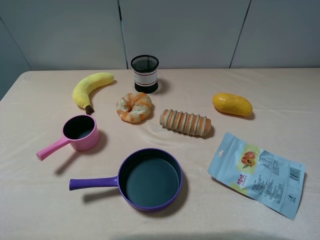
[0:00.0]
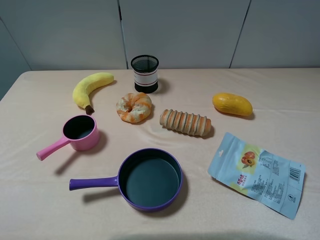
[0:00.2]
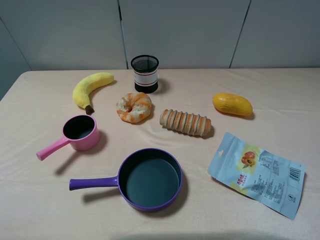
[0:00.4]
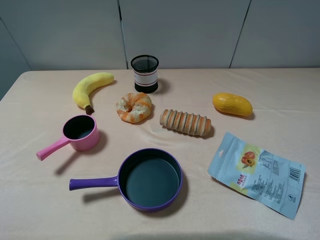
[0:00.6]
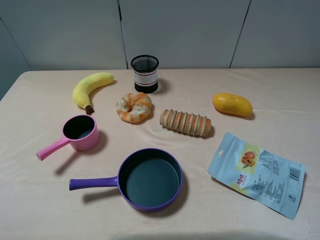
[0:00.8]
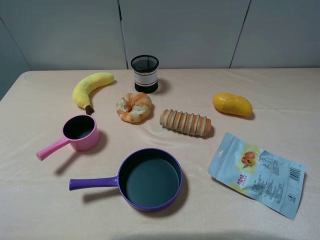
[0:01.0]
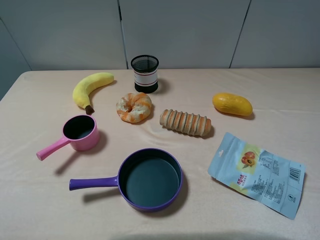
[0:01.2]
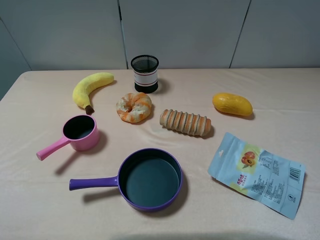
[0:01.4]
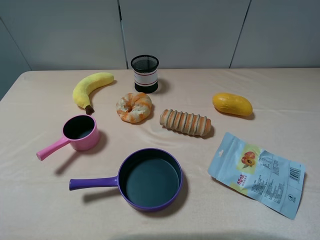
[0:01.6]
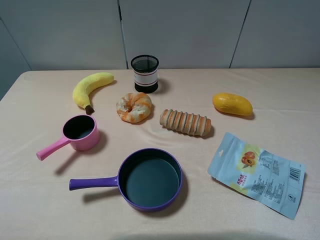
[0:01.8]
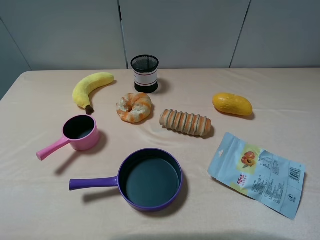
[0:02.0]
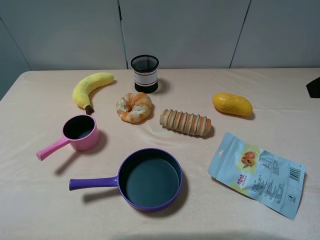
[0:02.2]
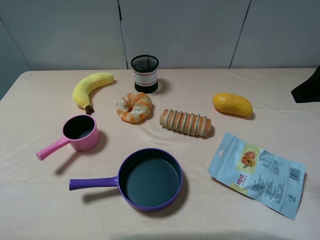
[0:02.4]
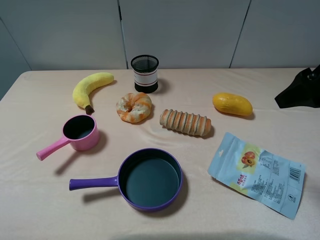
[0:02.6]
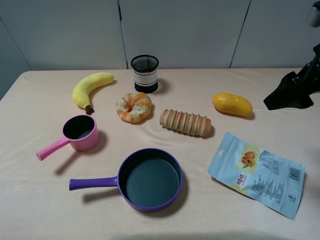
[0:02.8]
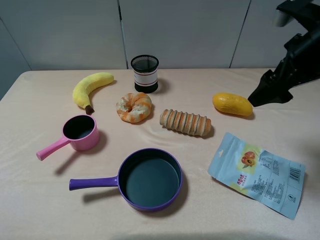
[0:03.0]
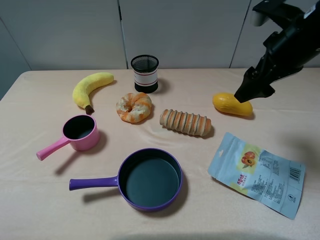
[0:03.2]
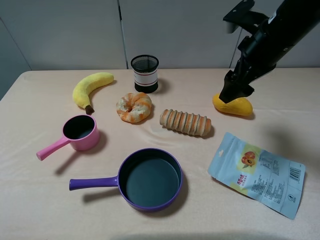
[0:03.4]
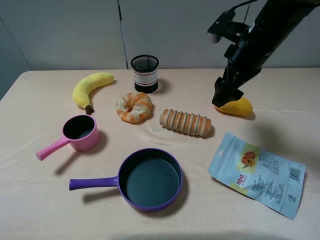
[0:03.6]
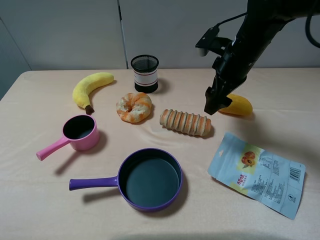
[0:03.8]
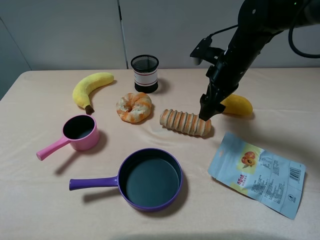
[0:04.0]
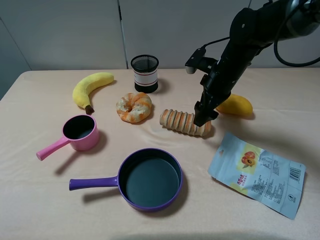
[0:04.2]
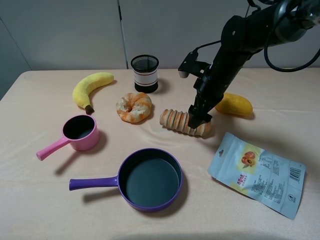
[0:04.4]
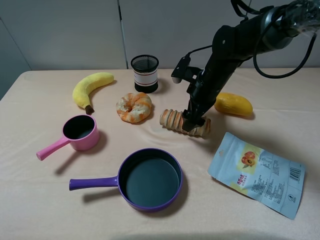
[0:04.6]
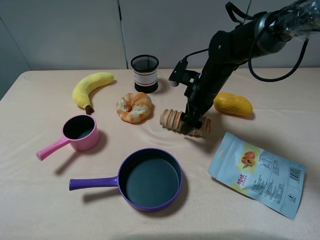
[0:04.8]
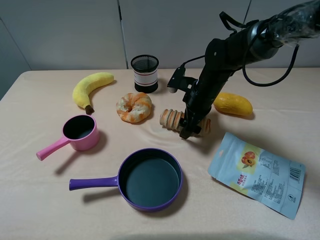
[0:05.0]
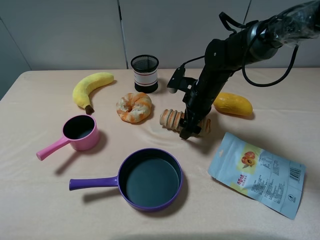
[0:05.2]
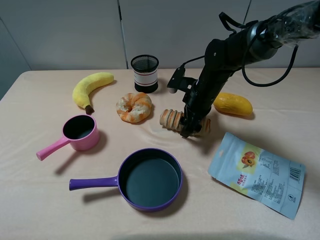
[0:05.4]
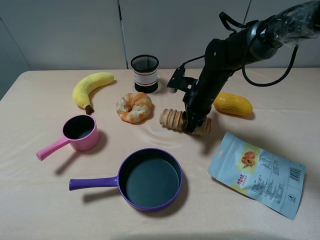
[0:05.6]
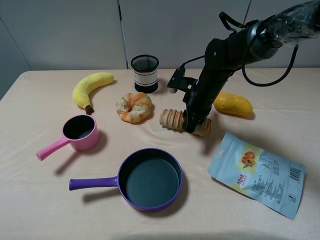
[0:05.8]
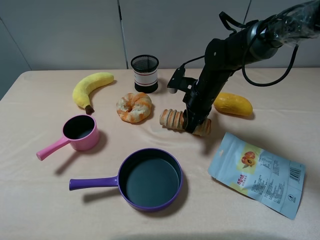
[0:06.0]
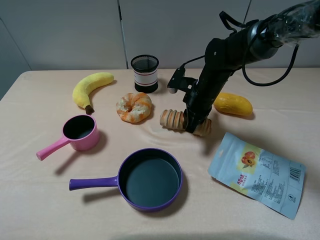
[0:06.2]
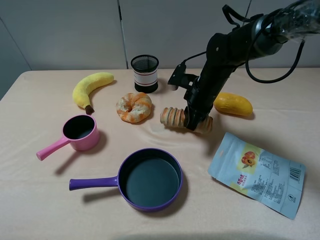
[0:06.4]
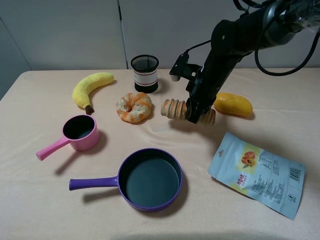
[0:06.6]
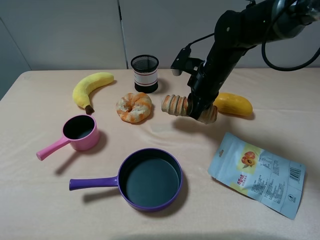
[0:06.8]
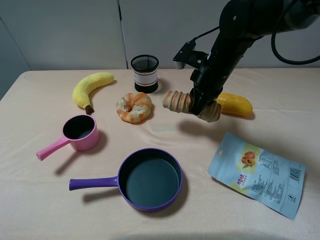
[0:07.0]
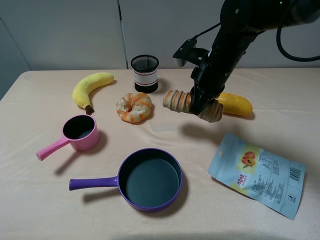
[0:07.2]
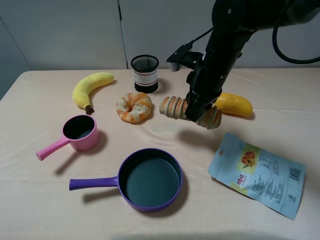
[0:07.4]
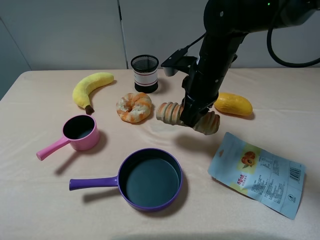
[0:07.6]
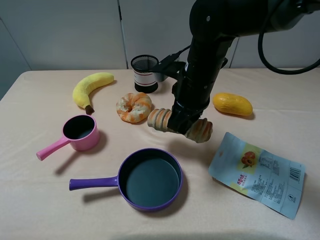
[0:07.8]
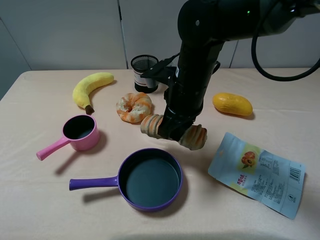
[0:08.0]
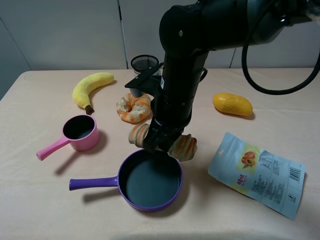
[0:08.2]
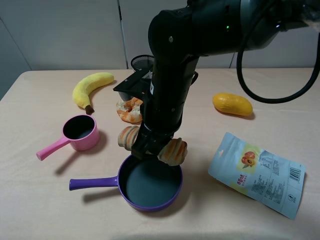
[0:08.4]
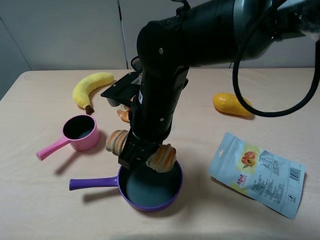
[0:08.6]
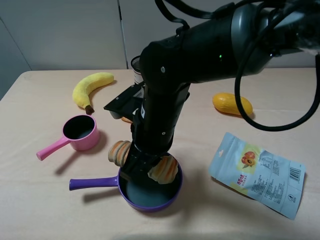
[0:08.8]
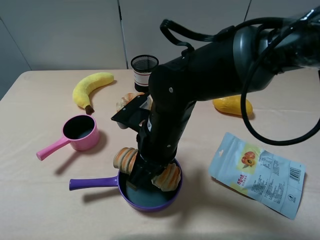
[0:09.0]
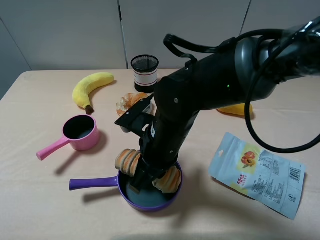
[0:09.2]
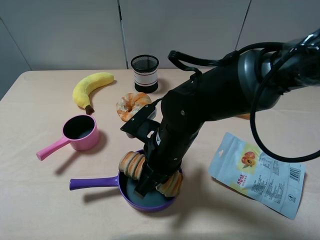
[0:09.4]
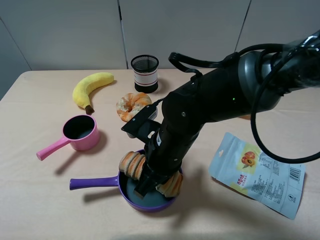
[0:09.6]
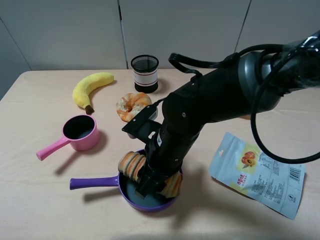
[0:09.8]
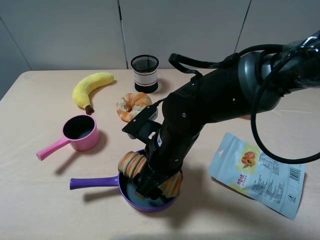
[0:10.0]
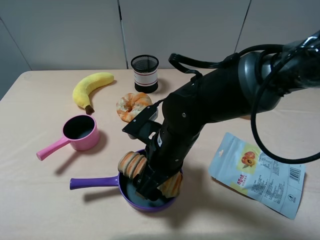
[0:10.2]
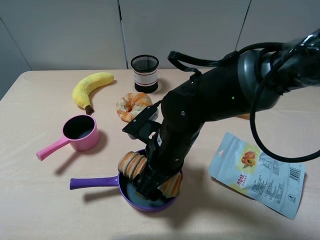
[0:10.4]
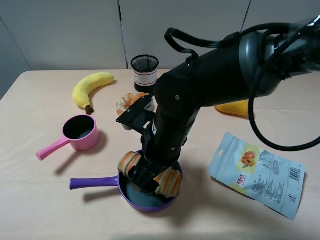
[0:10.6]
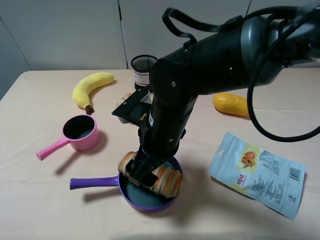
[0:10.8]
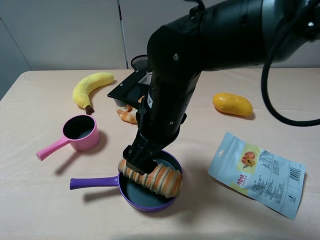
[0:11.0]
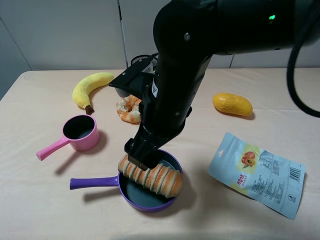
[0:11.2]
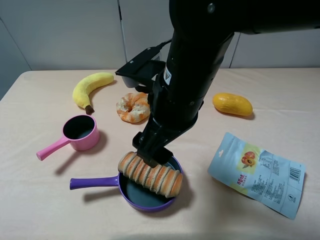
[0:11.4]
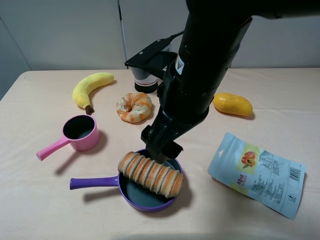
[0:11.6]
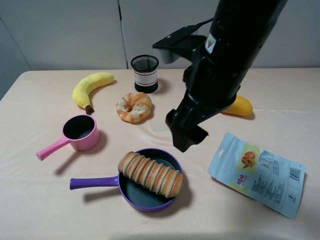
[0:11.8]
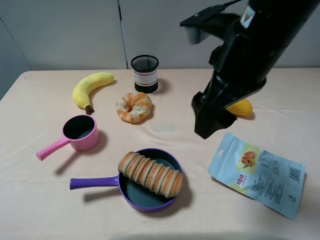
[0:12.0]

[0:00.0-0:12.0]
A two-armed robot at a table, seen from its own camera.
Task of the whole recording: pick up an item with a gripper and place it in a random container on the table.
Step, 0:00.0 to 0:05.8: Grasp the long bread with the right gripper.
Step, 0:06.0 to 0:11.6: Place the long bread into the purple pot with the right gripper.
0:01.6 to 0:03.0: The right gripper moves forward, some 20 cm.
0:03.0 to 0:04.4: The right gripper travels downward, to the left and forward by roughly 20 cm.
0:04.4 to 0:06.0: The right gripper closes its fingers.
0:06.0 to 0:07.6: The right gripper moves upward and backward, roughly 10 cm.
0:07.6 to 0:09.0: The right gripper travels backward and to the left by roughly 15 cm.
0:09.0 to 0:10.4: The right gripper opens.
0:10.4 to 0:12.0: The right gripper is displaced upward and to the right by roughly 20 cm.

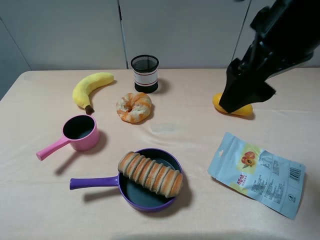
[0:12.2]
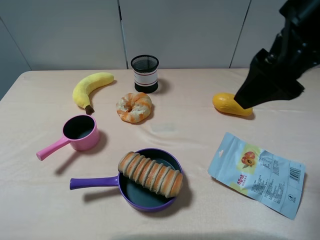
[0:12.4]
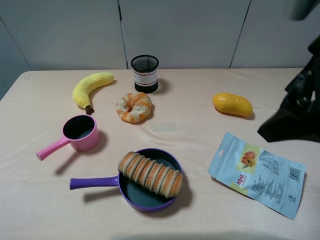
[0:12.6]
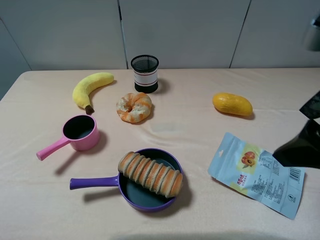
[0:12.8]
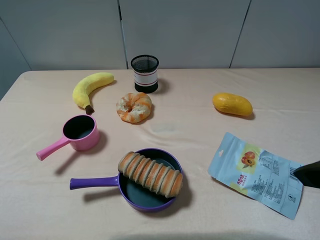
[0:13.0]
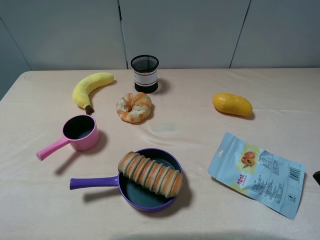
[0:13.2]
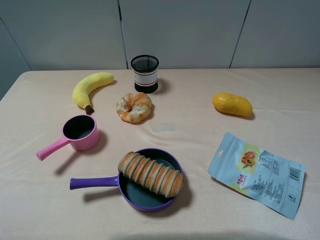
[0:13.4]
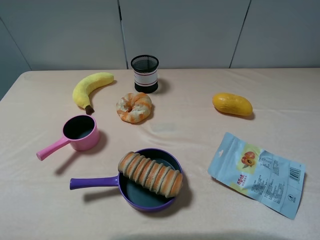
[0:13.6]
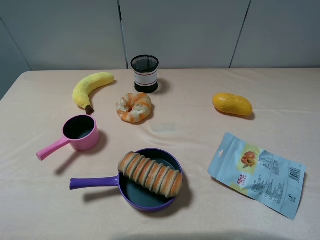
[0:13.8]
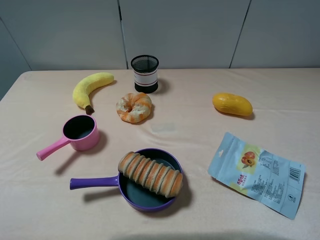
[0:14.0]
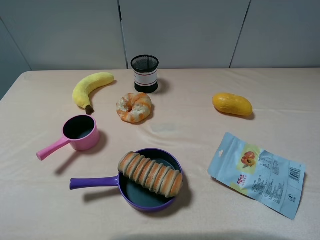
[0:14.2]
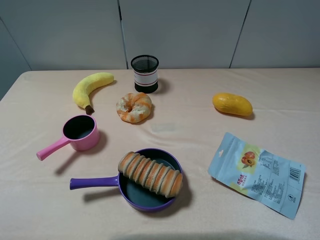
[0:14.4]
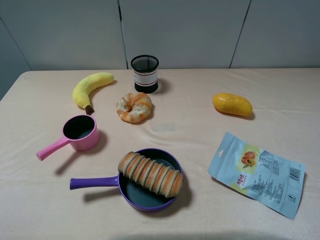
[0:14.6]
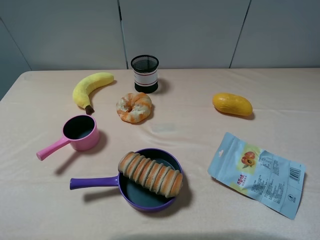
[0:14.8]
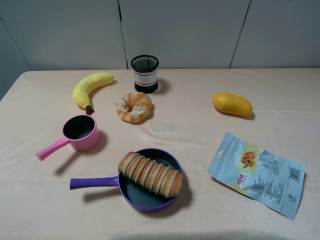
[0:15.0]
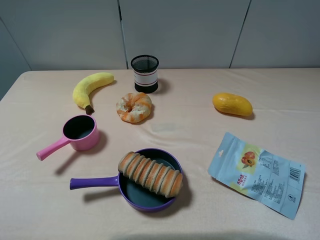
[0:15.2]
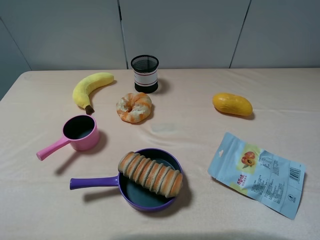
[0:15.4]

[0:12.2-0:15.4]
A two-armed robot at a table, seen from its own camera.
Task of the whole recording: pick up an item with a gripper and place it in a random container on the table.
0:12.2 to 0:13.8: The right gripper heads backward and to the right, covering roughly 25 cm.
